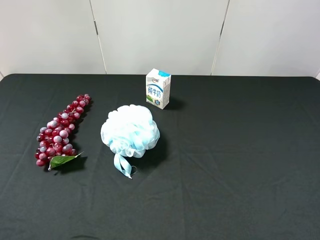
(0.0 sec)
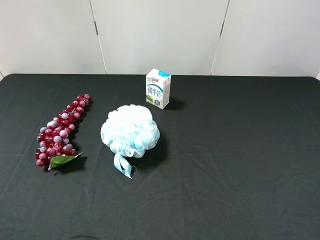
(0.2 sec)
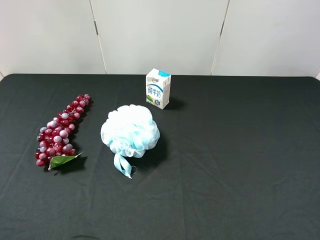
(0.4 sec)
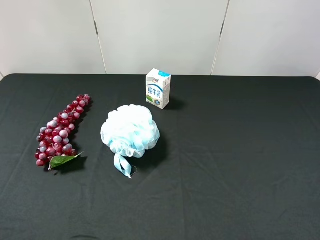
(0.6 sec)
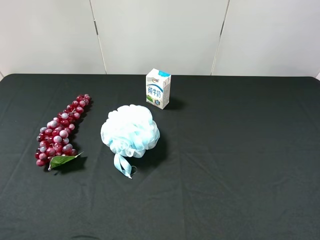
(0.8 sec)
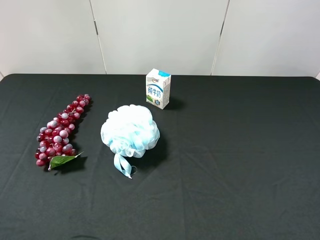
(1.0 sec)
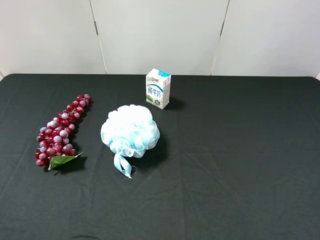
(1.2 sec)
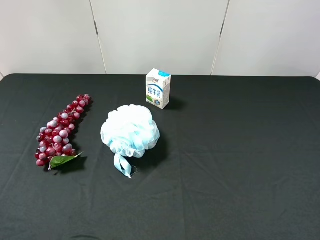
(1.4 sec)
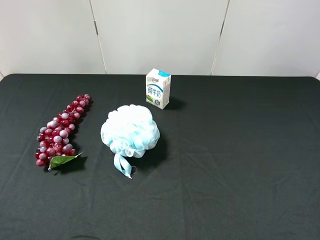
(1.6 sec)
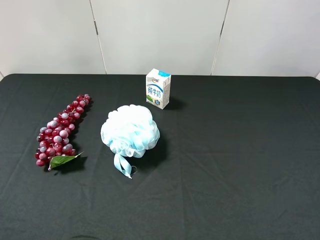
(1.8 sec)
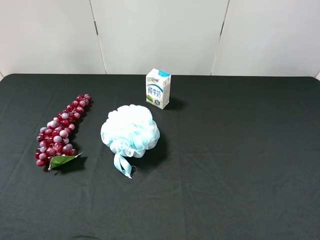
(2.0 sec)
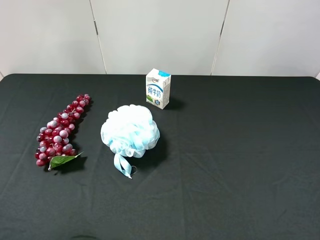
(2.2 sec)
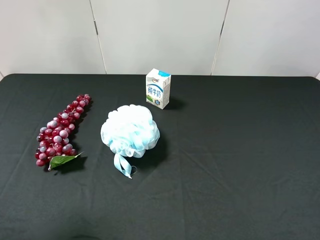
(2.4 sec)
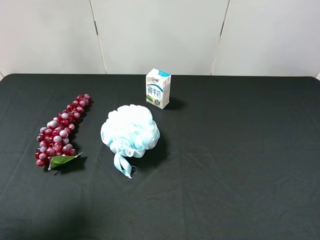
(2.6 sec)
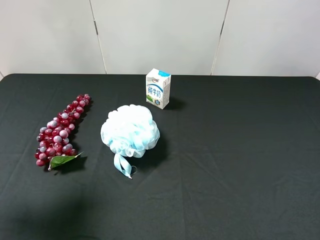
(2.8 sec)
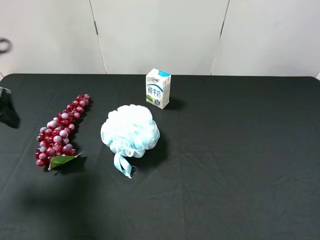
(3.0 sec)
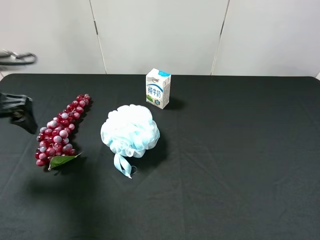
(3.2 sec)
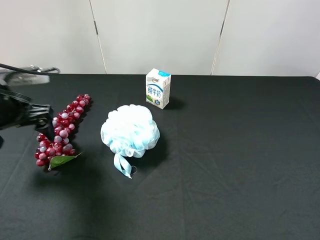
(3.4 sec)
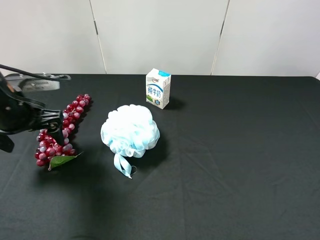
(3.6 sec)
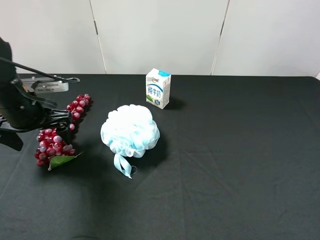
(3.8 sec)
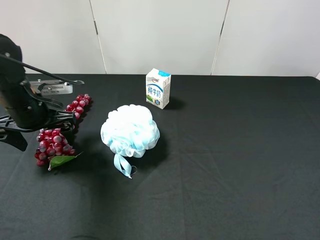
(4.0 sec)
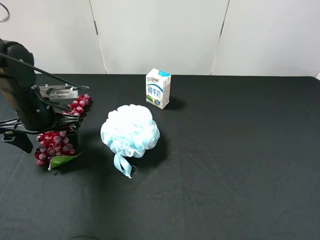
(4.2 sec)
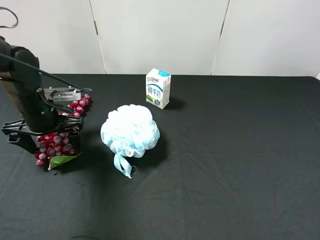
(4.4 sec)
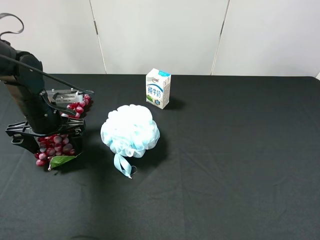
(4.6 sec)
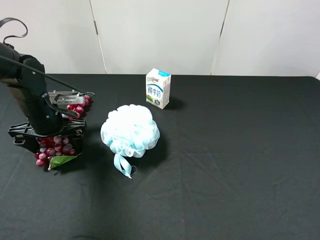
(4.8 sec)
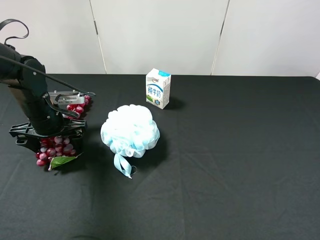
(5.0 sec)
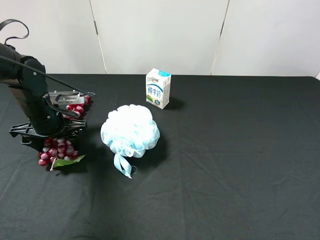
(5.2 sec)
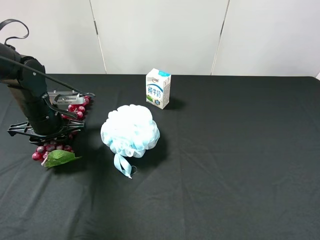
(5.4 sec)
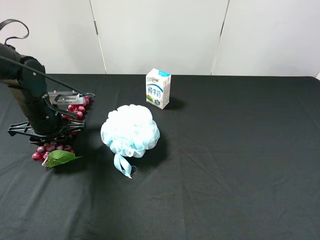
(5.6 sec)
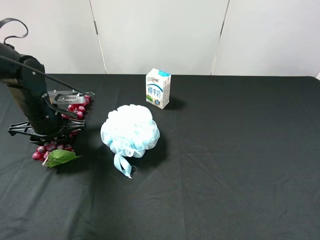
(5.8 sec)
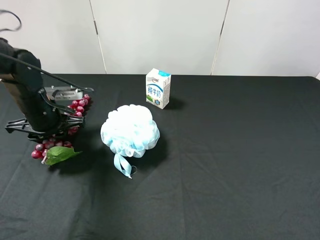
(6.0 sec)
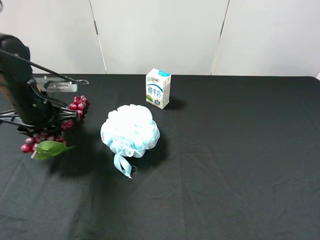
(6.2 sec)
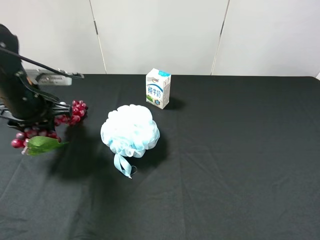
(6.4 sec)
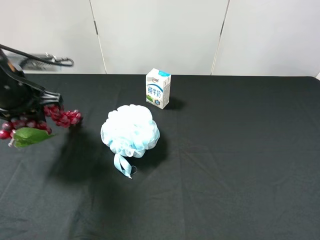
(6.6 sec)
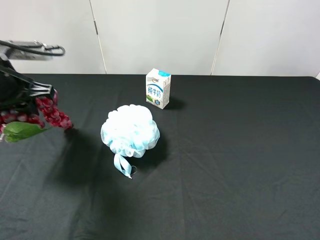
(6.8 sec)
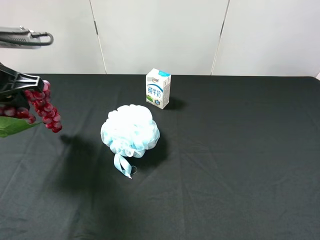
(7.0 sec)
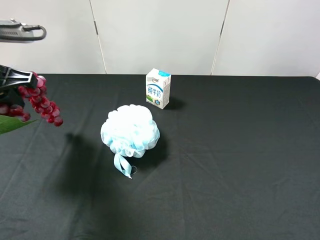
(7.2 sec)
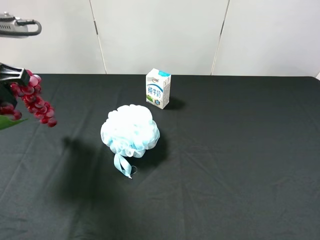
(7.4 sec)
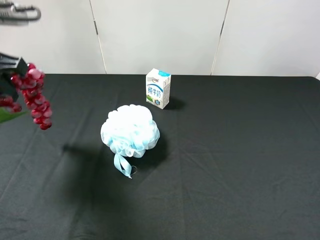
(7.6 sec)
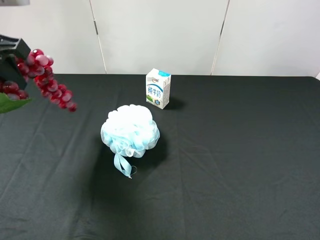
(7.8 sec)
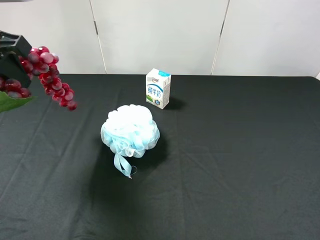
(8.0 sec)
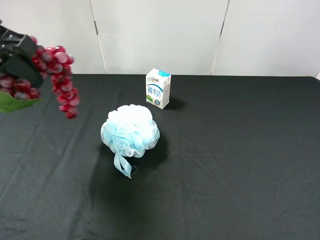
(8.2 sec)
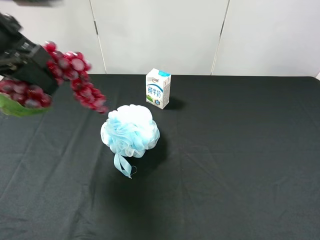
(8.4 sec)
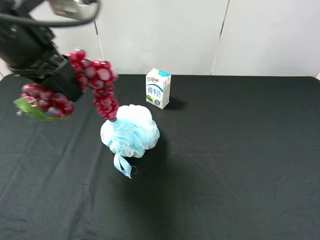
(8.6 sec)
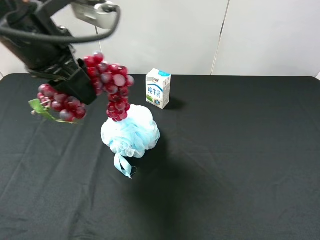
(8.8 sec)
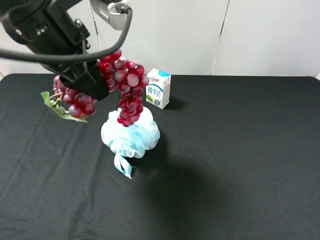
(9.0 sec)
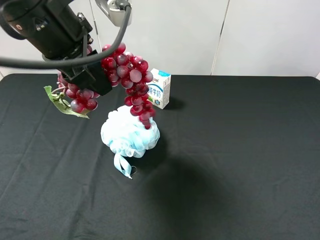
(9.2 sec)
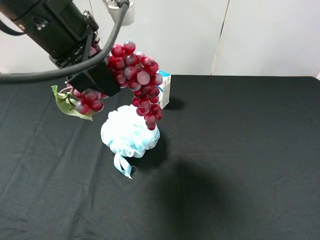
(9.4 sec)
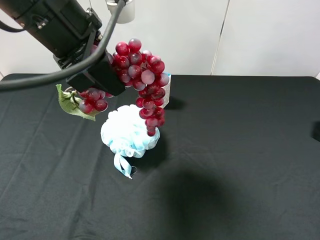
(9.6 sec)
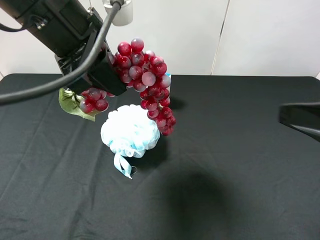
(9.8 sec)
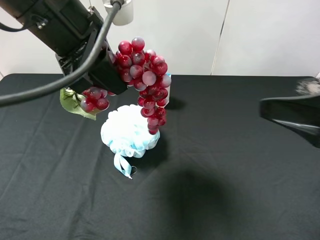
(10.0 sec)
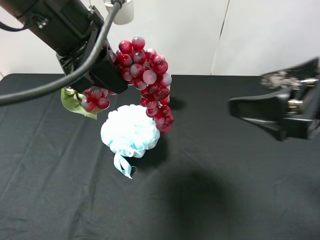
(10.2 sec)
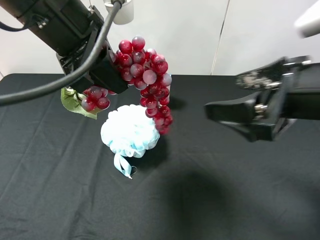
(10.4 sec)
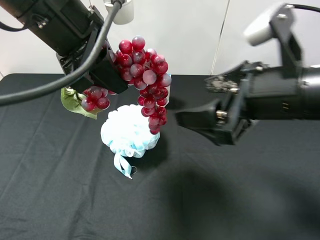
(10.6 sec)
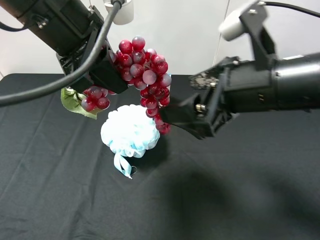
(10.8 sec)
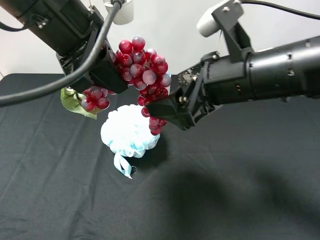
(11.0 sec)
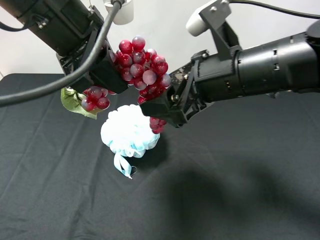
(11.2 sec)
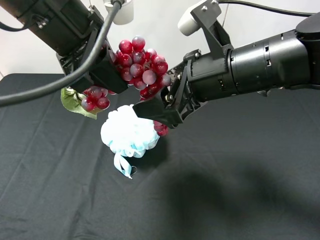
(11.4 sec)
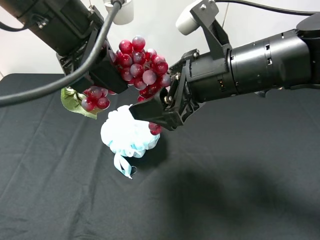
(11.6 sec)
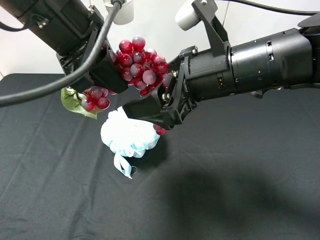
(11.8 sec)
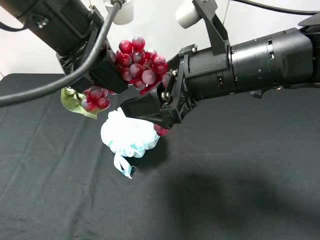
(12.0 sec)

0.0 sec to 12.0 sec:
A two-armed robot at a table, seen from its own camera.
Task of the whole recording: use the left gripper to pick up the item and transfer it from the left gripper to the right gripper.
0.0 sec to 1.6 sec: Both grippers stay put.
1.6 sec to 3.0 sec: The left gripper heads forward, covering approximately 20 cm.
3.0 sec to 4.4 sec: The left gripper goes some 15 cm downward, forward and to the right.
4.4 sec to 6.0 sec: The left gripper closes its fingers.
6.0 sec to 7.6 sec: The left gripper heads upward, covering roughly 20 cm.
7.6 sec to 9.0 sec: The left gripper heads to the right, covering some 15 cm.
9.0 sec to 10.4 sec: The right gripper is displaced forward and to the left by roughly 20 cm.
10.4 sec to 12.0 sec: The right gripper travels to the left and forward by some 10 cm.

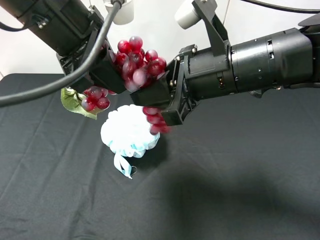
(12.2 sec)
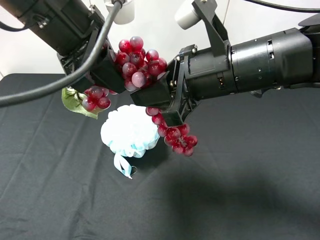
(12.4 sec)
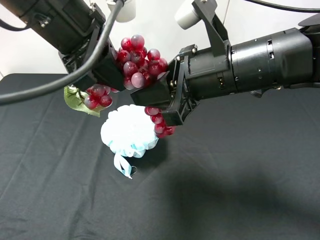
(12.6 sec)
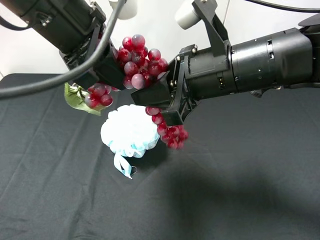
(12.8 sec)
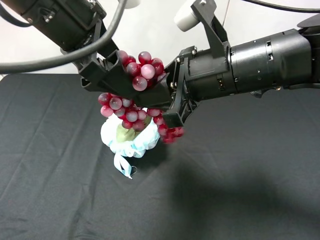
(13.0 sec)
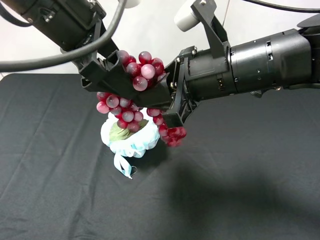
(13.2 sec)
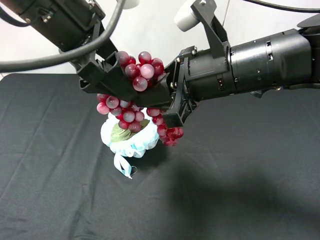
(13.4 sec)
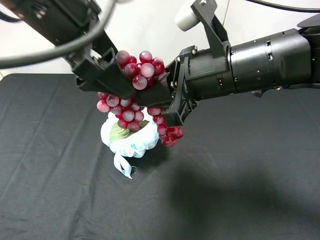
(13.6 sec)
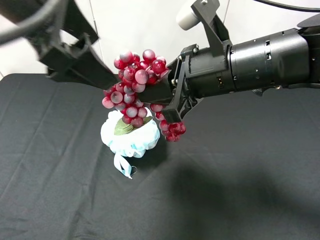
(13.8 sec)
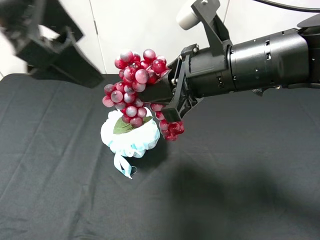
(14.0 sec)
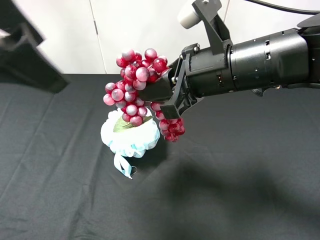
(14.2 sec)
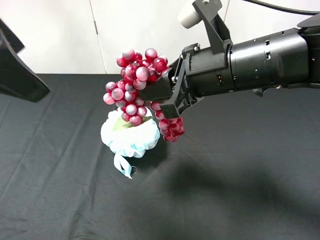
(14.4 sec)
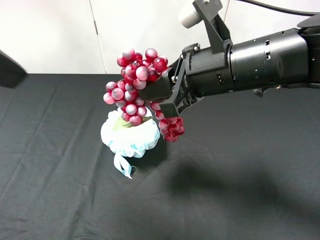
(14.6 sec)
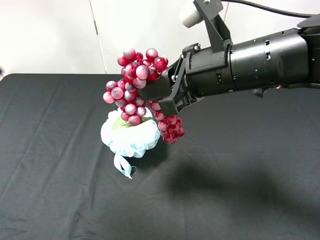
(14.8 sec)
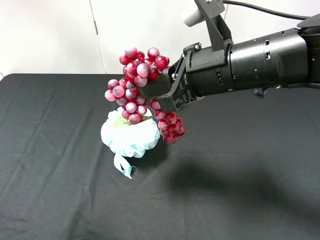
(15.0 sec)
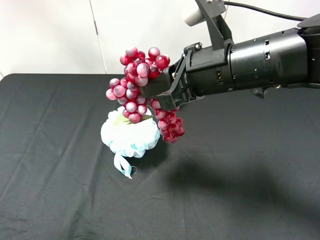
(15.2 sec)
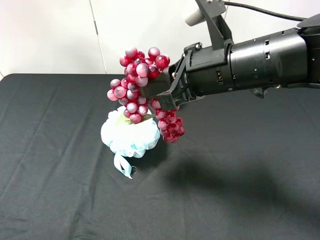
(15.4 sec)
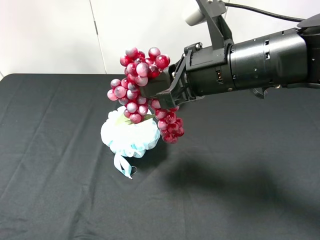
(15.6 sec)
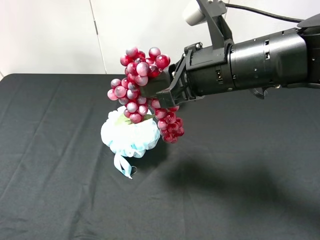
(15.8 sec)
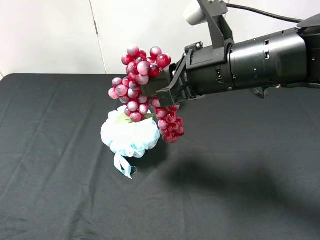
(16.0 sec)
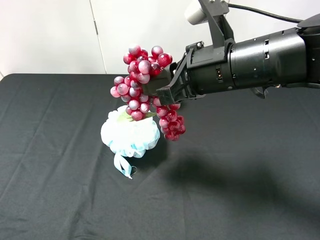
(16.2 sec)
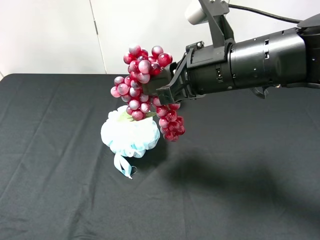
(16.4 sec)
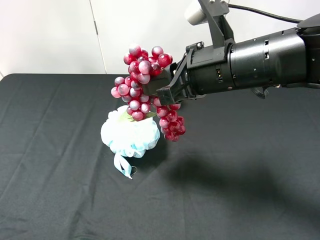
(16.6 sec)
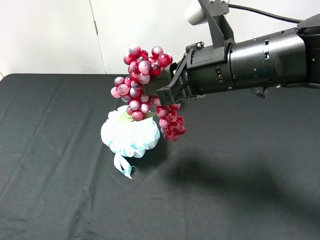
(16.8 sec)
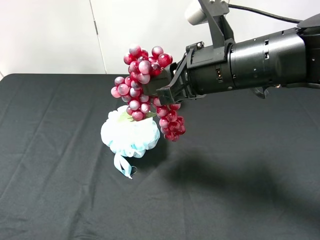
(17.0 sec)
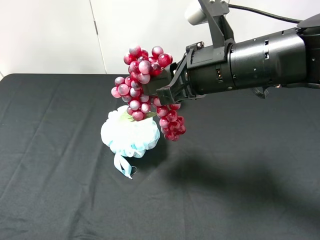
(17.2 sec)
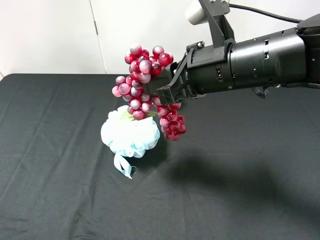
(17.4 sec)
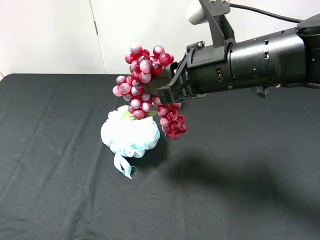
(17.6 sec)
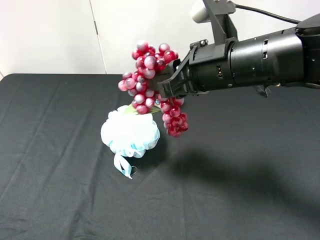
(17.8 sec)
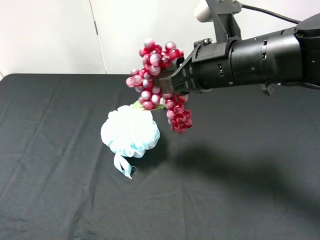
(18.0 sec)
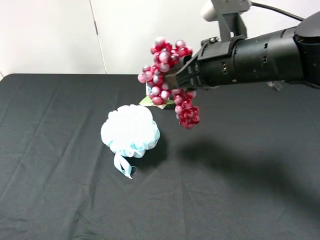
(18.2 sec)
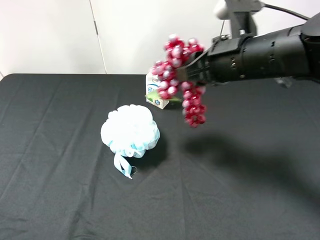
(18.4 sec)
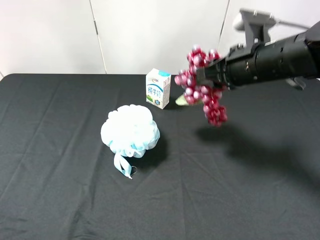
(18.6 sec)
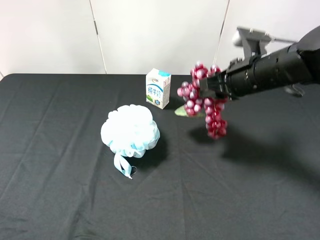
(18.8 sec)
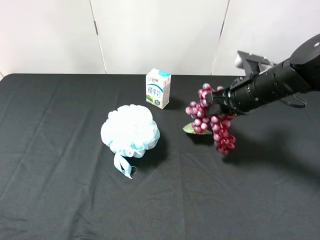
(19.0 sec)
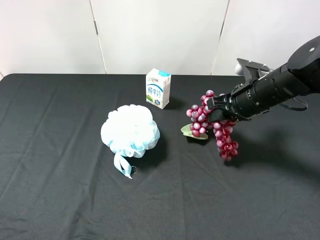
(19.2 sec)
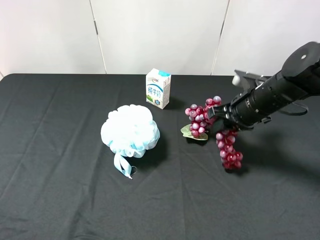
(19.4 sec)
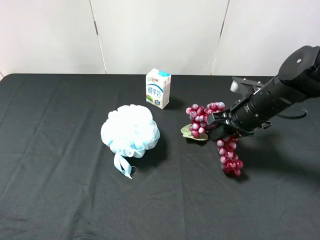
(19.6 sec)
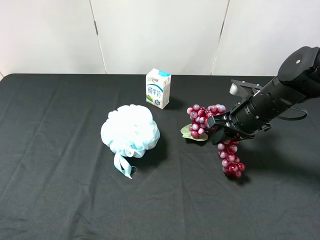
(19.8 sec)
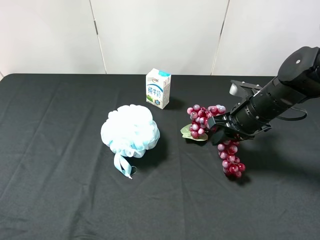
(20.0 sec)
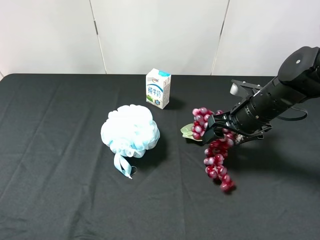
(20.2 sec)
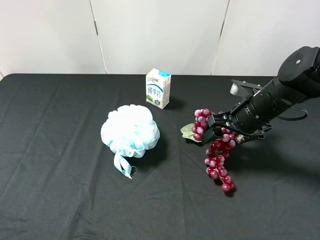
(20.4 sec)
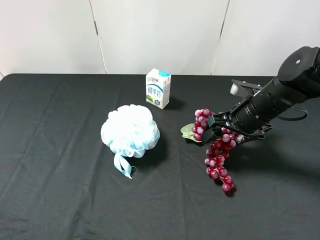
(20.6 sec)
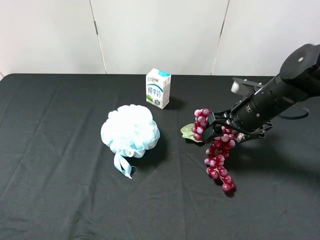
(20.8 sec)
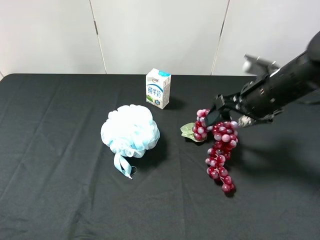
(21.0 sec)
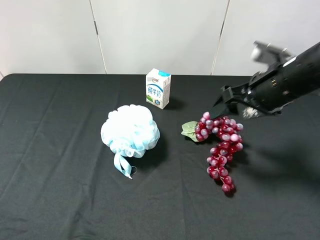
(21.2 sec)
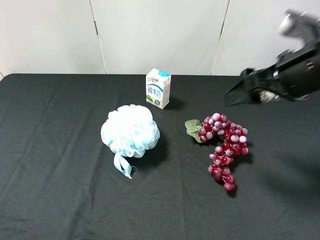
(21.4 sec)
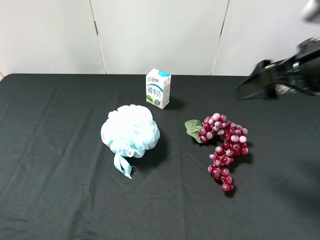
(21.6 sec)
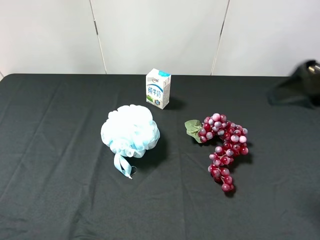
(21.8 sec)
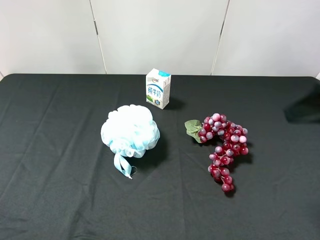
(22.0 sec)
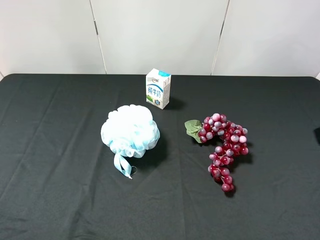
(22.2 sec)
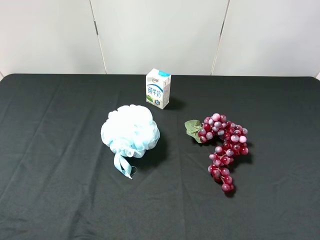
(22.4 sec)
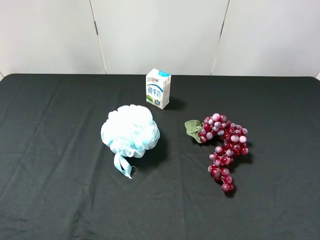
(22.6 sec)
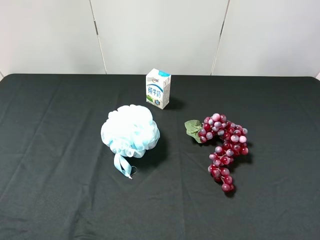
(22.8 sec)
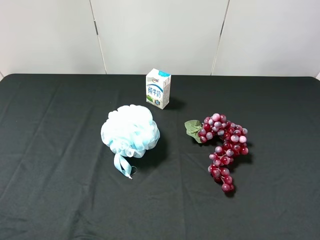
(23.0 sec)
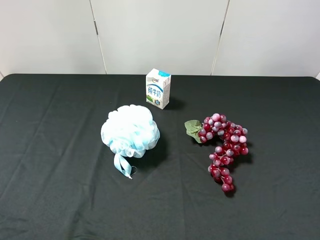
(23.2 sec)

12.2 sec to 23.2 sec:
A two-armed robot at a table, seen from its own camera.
Task of the whole recording: use the left gripper to pick up the item and transfer it from the left gripper to the right gripper.
12.2 sec to 13.8 sec: The left gripper changes place by some 5 cm, and opens its fingers.
13.8 sec to 15.4 sec: The left gripper shifts roughly 25 cm backward and to the left.
15.4 sec to 17.0 sec: The left gripper moves downward, some 10 cm.
17.0 sec to 18.4 sec: The right gripper moves some 5 cm.
18.4 sec to 20.0 sec: The right gripper is displaced downward and to the right by some 15 cm.
20.0 sec to 21.6 sec: The right gripper goes roughly 20 cm upward and backward, and opens its fingers.
21.6 sec to 23.2 sec: The right gripper shifts approximately 20 cm backward.
